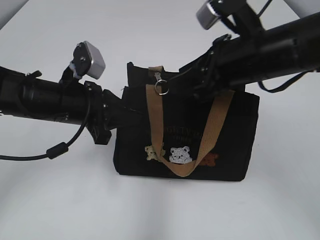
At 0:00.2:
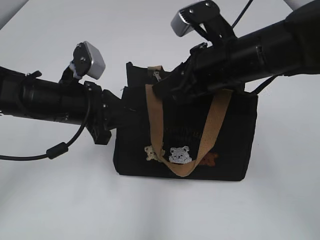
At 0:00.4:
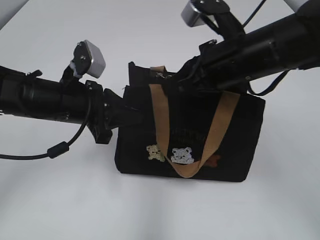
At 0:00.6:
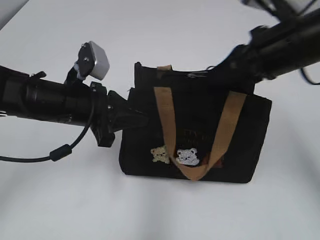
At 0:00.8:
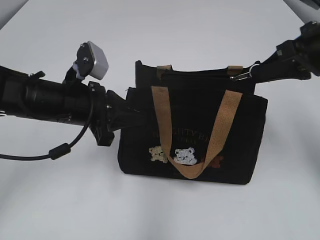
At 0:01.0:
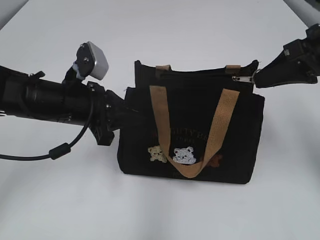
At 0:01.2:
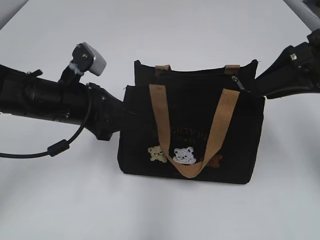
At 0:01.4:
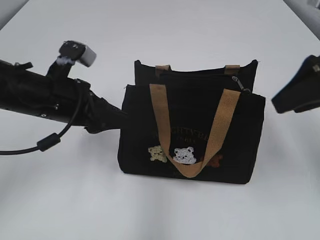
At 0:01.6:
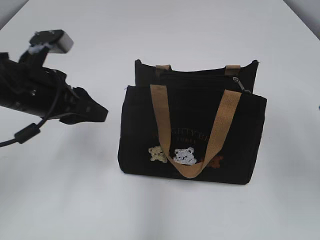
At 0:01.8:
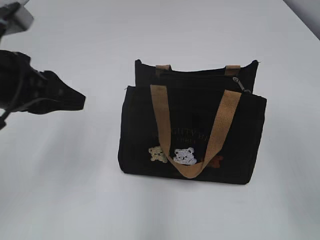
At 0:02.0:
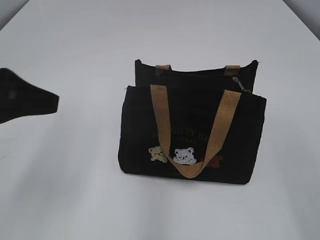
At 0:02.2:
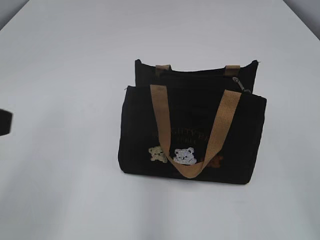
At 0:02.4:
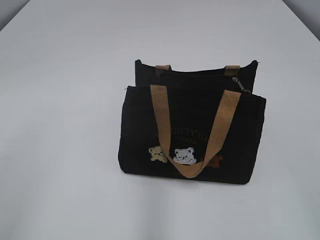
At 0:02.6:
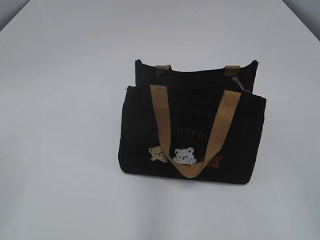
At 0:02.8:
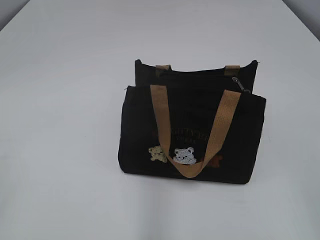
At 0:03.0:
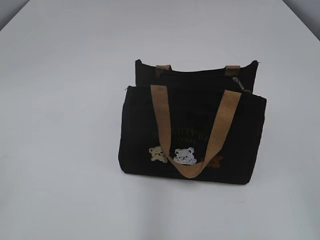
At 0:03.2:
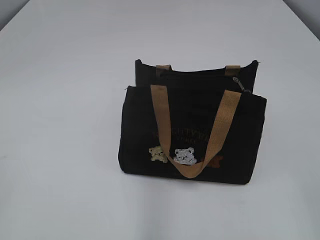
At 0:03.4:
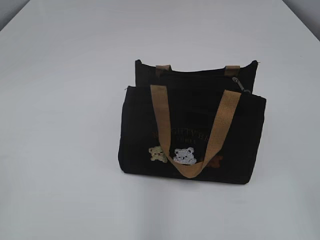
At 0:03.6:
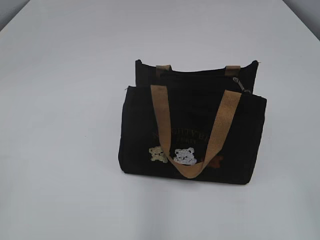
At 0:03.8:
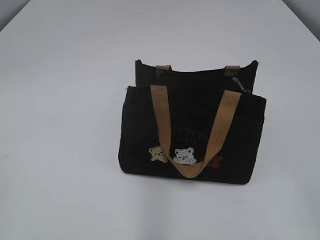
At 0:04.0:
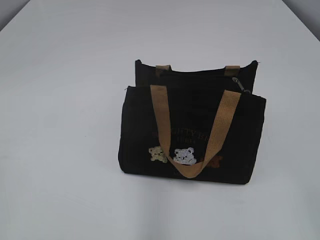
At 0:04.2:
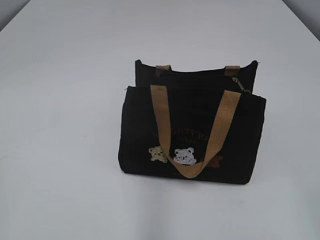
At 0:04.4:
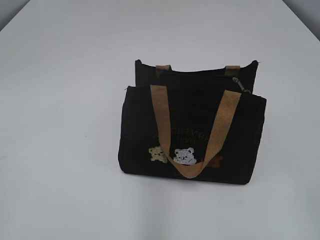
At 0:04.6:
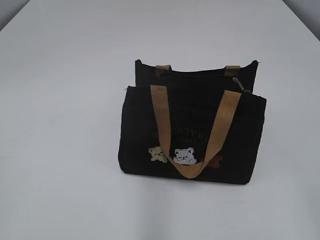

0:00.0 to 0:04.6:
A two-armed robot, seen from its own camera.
0:00.0 to 0:01.6: The right gripper moves to the right, backward and upward, roughly 15 cm, and closes, then reopens. Meanwhile the left gripper changes place by approximately 5 cm, and opens its fingers.
0:01.6 to 0:03.0: The left gripper goes some 30 cm backward and to the left. The right gripper travels backward by roughly 20 cm.
